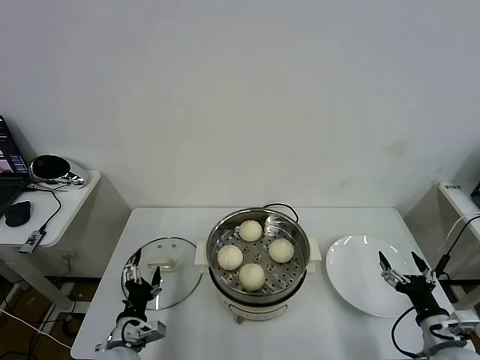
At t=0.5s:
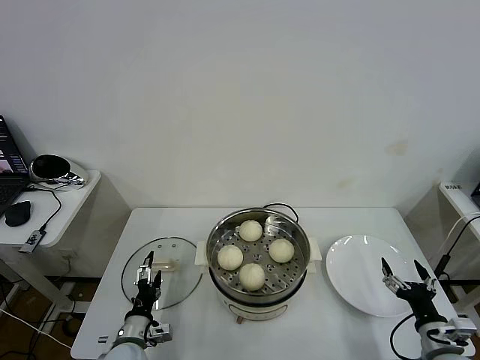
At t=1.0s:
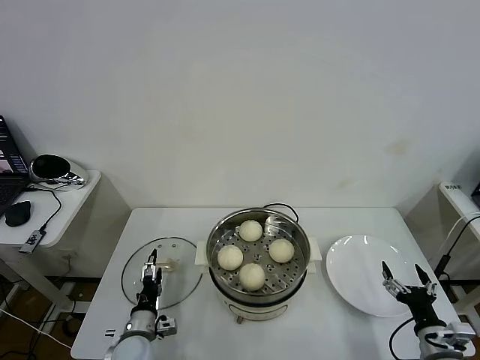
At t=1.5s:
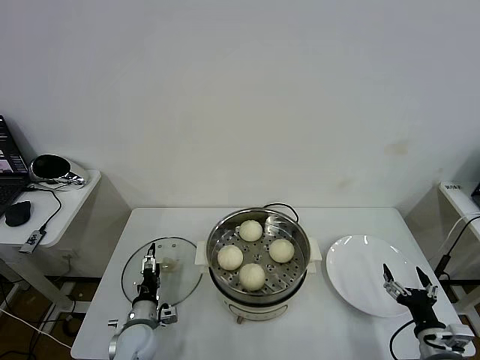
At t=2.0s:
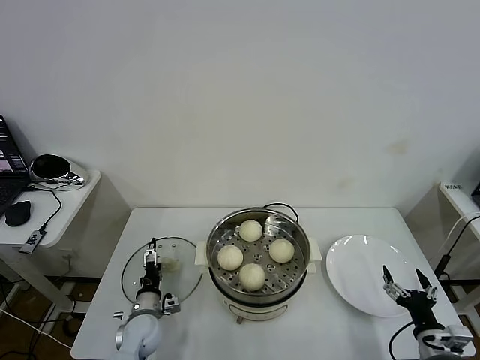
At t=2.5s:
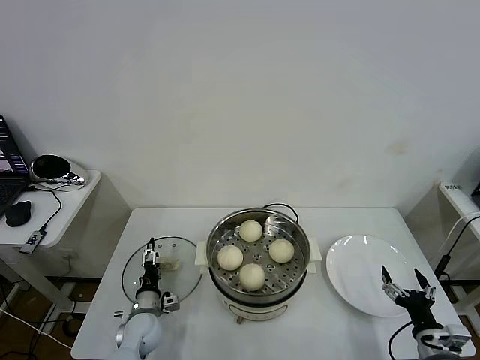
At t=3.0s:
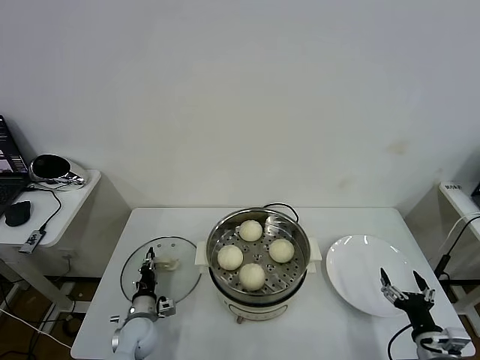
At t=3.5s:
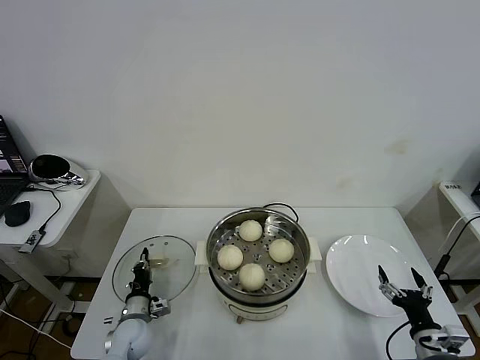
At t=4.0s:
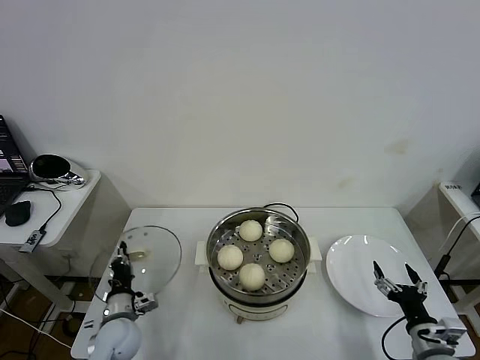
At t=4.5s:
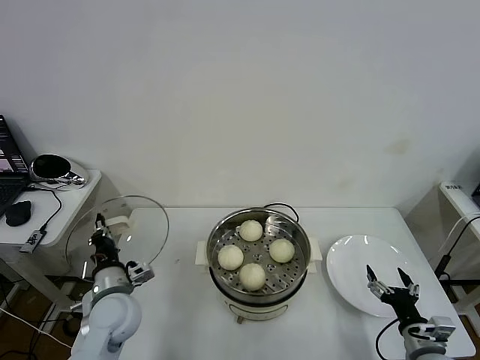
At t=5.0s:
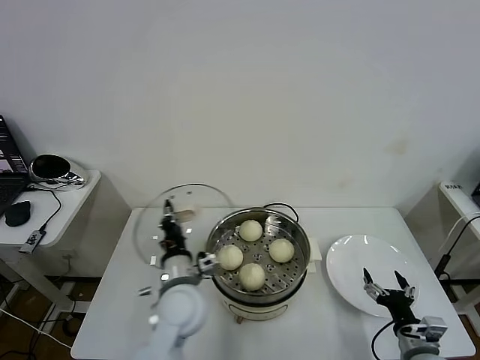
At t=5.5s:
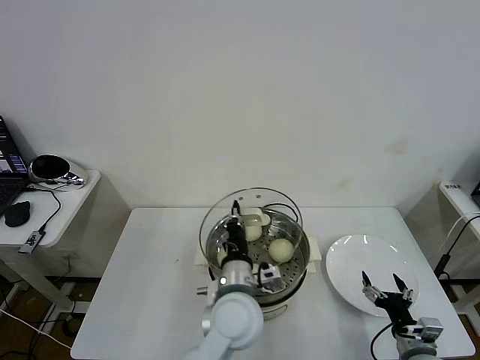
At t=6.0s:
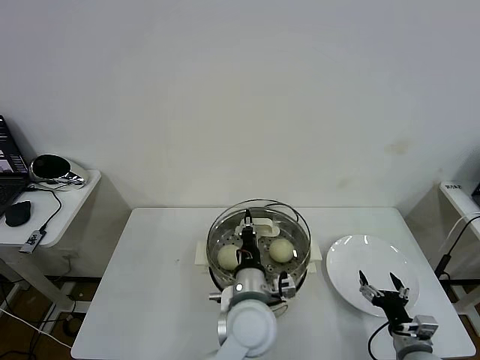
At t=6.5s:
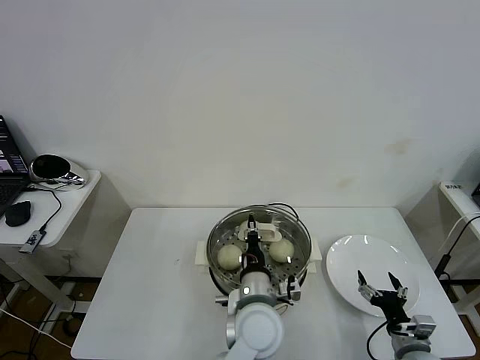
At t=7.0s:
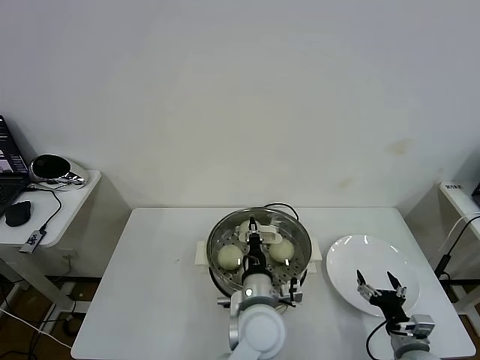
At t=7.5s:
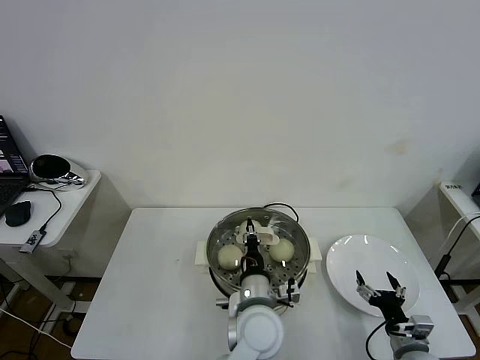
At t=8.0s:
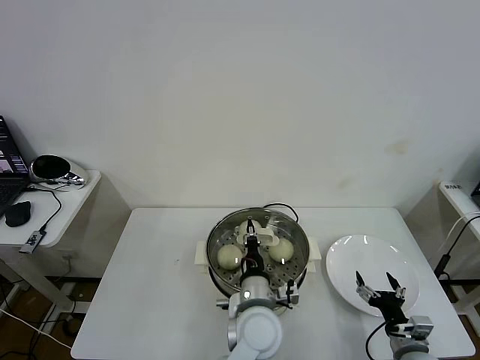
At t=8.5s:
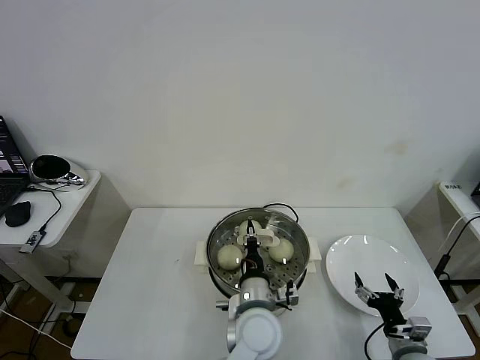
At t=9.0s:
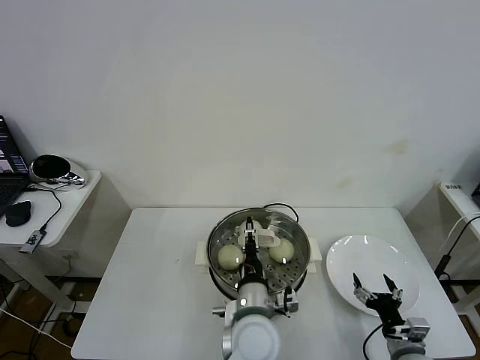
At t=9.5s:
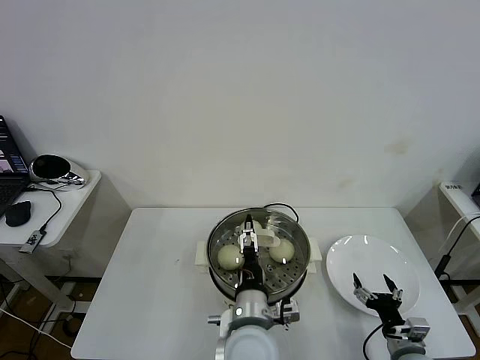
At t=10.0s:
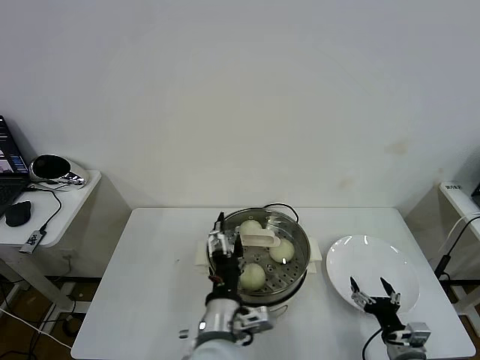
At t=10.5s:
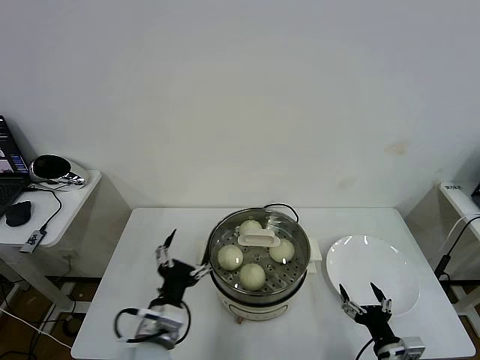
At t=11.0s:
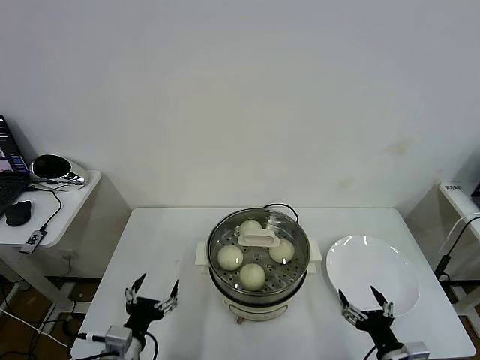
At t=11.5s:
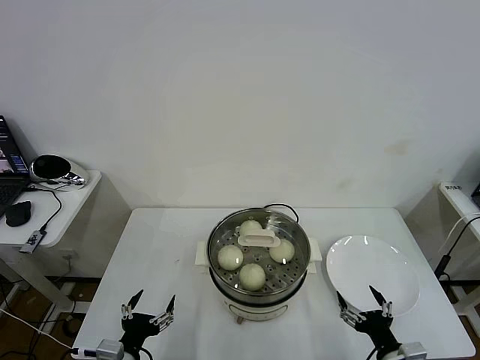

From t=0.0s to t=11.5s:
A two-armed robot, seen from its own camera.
Task of the whole recording: take steamed baozi put them in steamer then cover it.
Step, from t=0.0s to t=3.0s: Grasp the pot lid with left gripper.
Step, from t=3.5s to t=9.0s: Place the pot lid on the steamer with left gripper.
From t=0.0s to t=2.0s: The left gripper heads forward and downward, covering roughly 15 cm.
From t=2.0s to t=4.0s: The left gripper shifts by some 5 cm, and closes up.
From t=4.0s to t=6.0s: The left gripper moves to the right and upward, about 35 cm.
From t=6.0s to t=7.5s: The grippers move only a little.
From t=7.5s to t=9.5s: The left gripper opens.
From t=9.5s to t=11.5s: The right gripper moves backward, approximately 5 cm; the left gripper is displaced to the left by approximately 30 cm.
